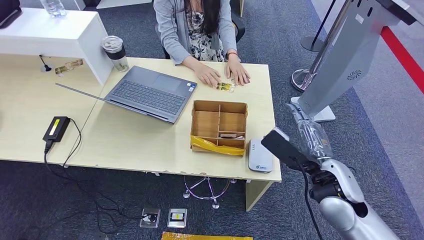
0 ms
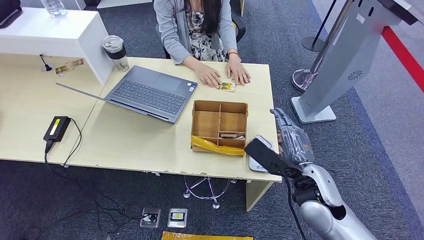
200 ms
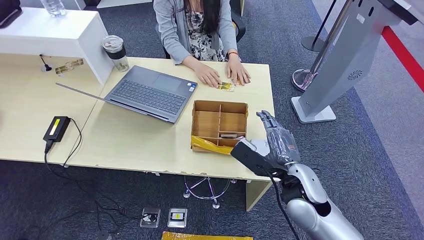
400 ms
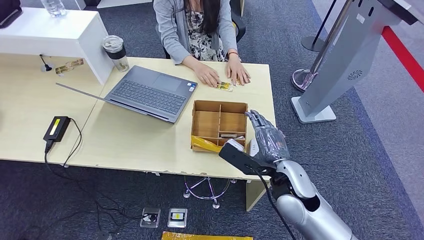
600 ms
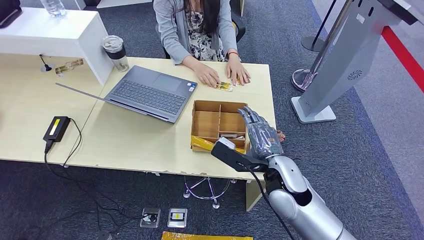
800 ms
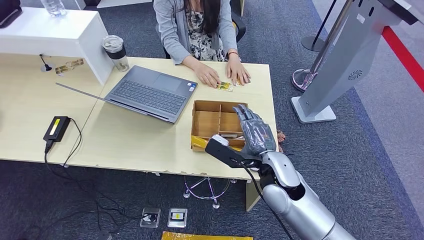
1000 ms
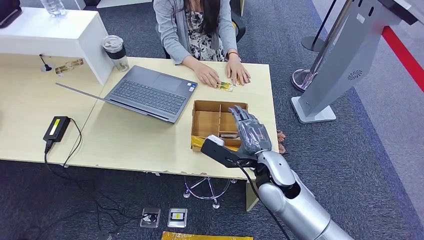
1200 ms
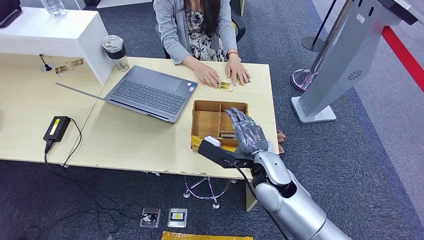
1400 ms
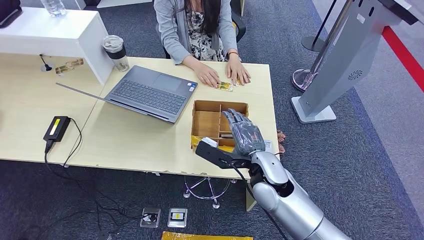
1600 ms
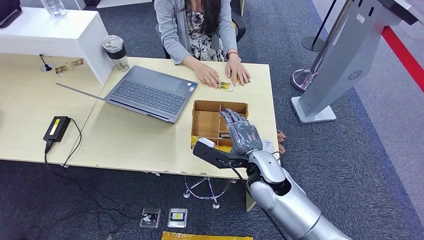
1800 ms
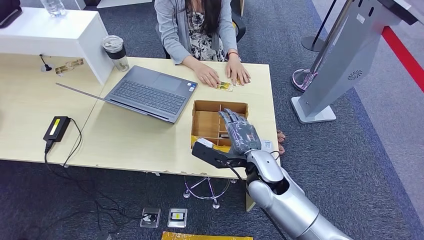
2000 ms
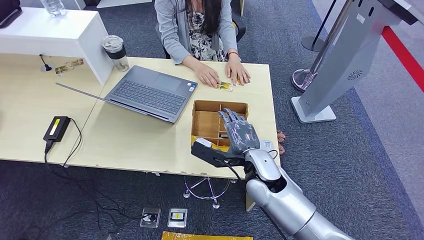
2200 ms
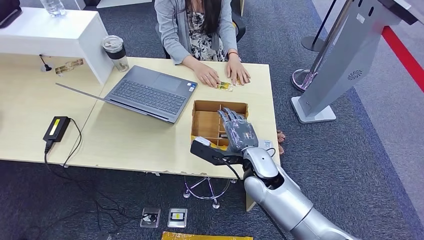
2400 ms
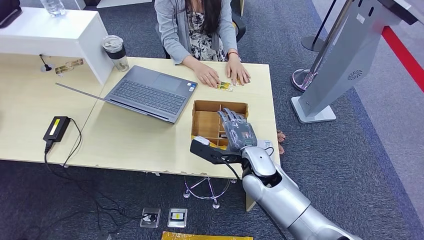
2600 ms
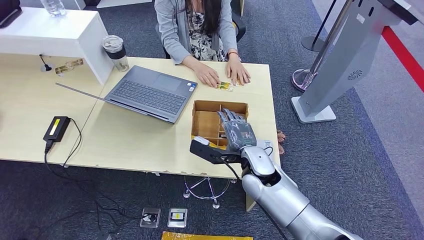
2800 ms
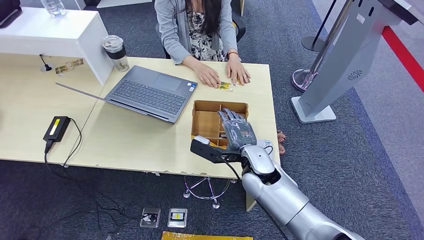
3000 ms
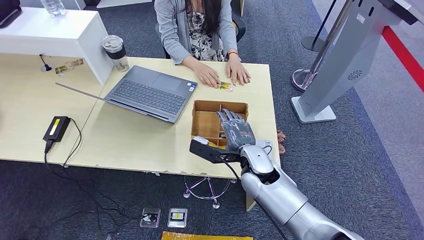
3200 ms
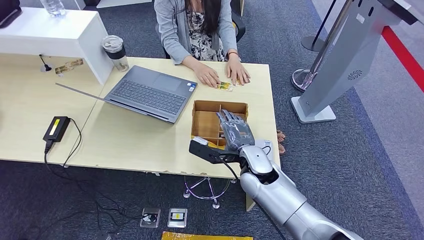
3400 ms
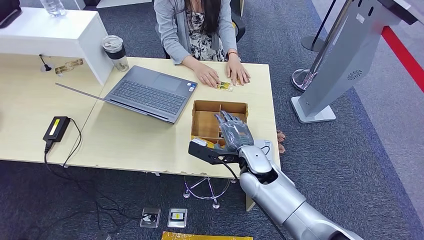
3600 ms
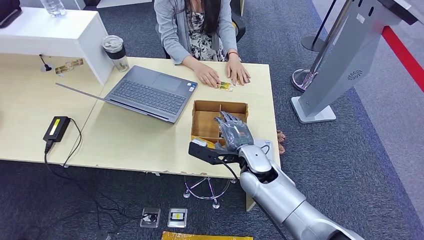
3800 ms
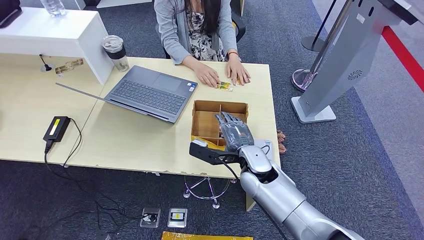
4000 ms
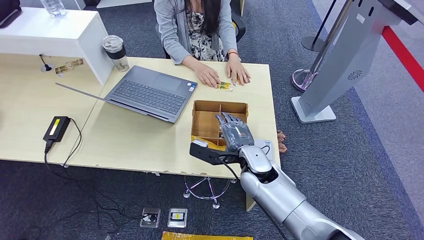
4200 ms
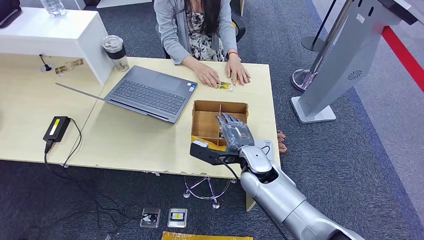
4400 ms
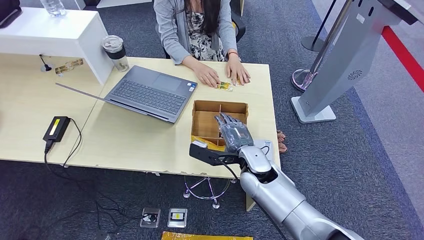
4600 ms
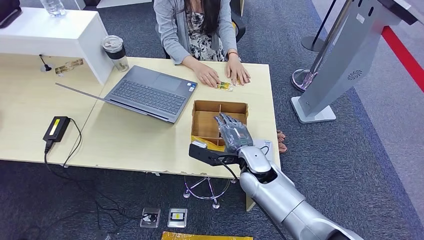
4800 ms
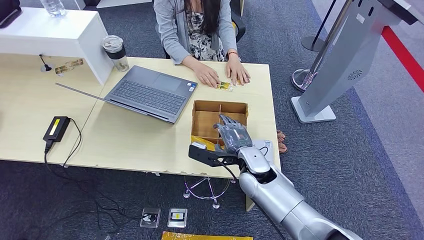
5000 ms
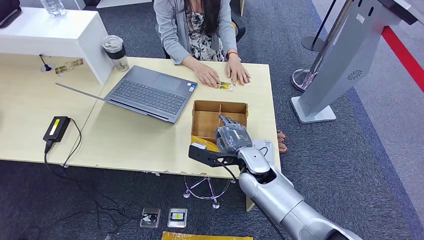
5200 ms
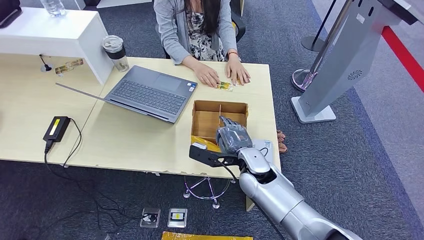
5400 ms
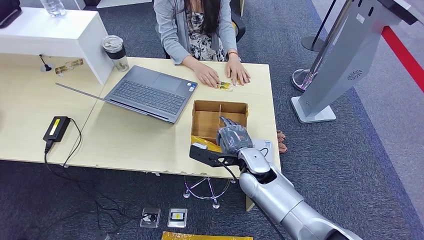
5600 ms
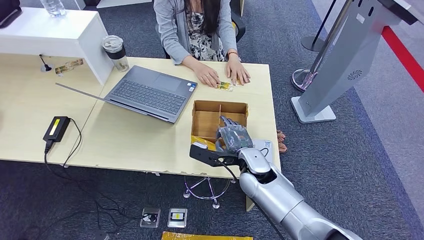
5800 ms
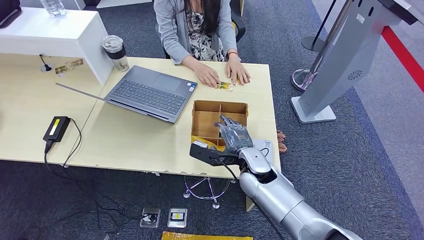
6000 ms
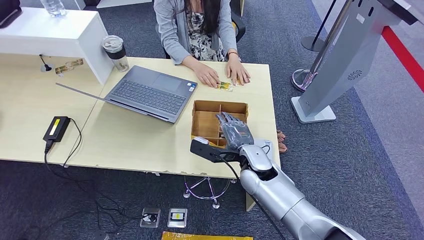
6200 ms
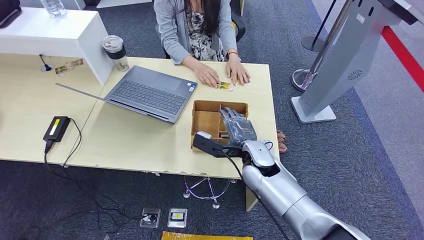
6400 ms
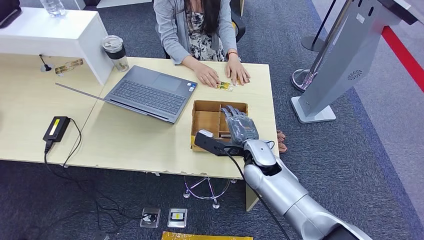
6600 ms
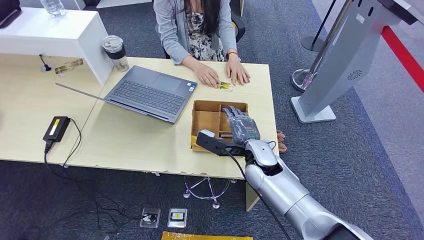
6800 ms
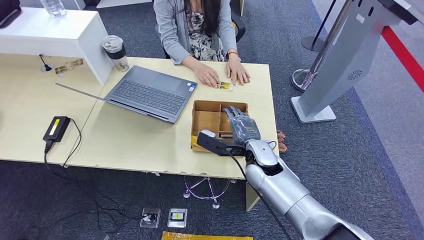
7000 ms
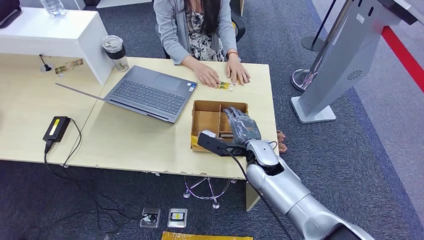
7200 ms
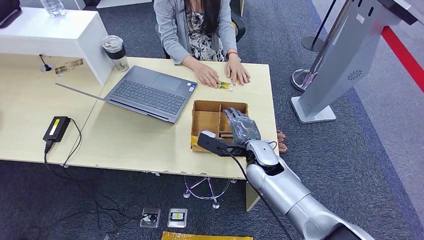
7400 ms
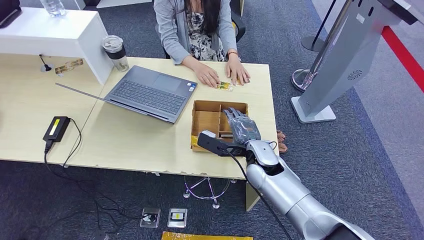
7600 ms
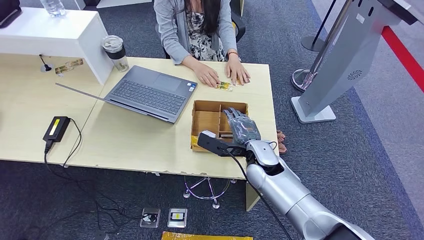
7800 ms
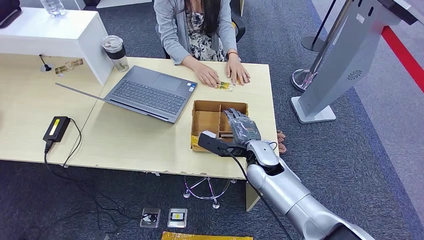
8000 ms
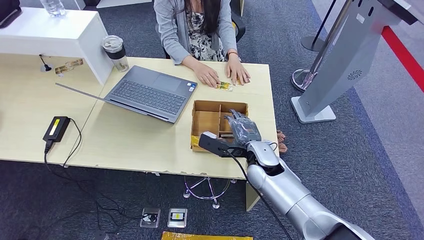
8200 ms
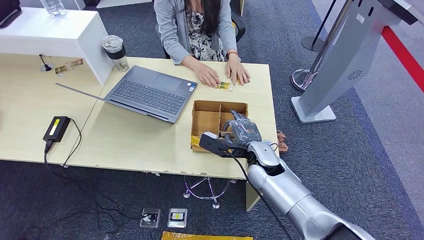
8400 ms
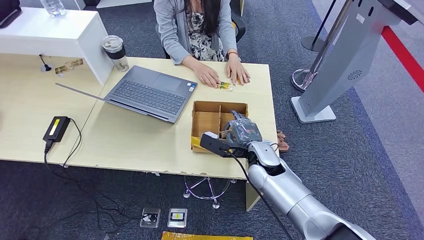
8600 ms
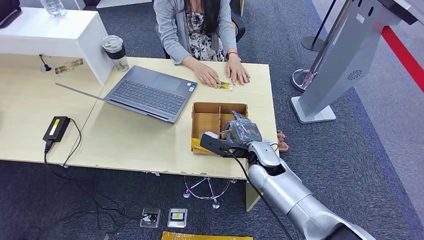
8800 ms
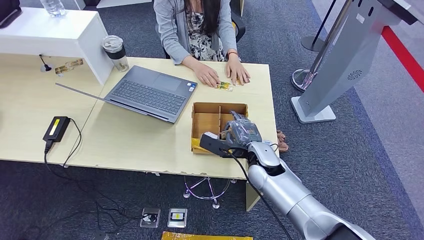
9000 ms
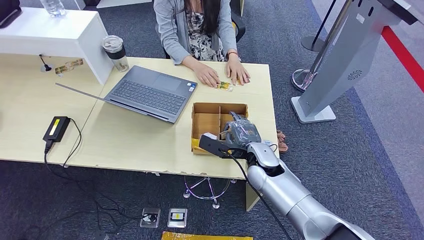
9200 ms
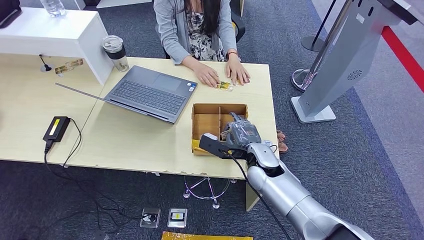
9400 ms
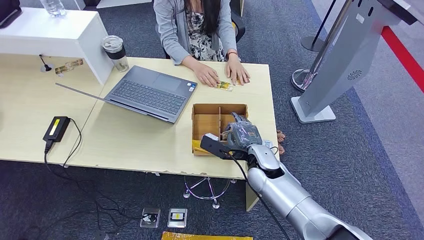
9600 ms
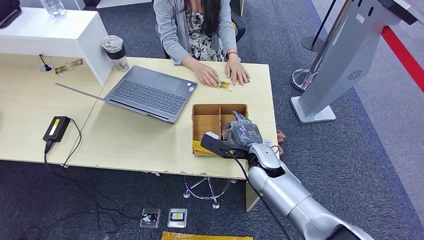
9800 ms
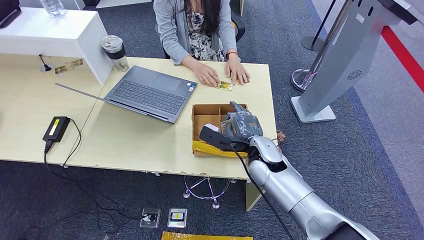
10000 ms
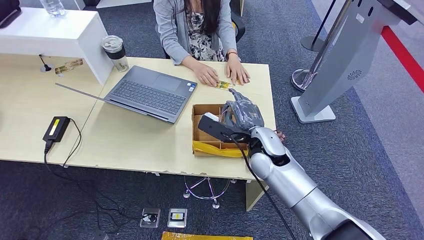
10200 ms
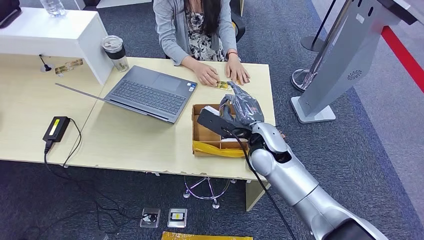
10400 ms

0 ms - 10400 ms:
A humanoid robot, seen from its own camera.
0 ms - 1400 ms: The right hand is displaced to the left by approximately 15 cm.
1400 ms - 4400 ms: There are only small adjustments of the hands.
4400 ms - 6000 ms: Neither hand changes place.
6000 ms - 7400 ms: The hands make only small movements.
7400 ms - 9000 ms: The two hands keep their place.
9000 ms - 10400 ms: The right hand moves upward, approximately 5 cm.

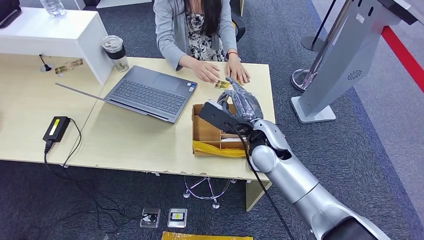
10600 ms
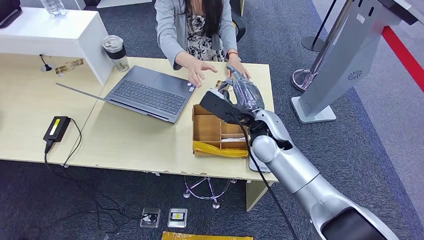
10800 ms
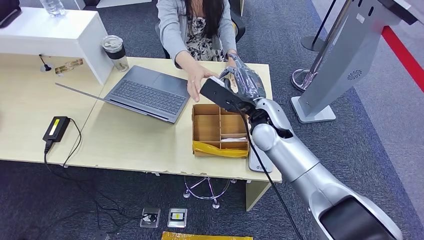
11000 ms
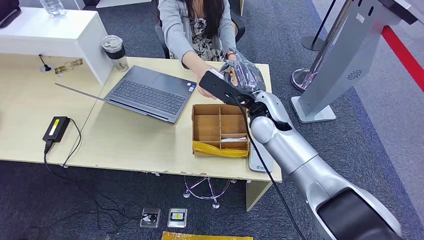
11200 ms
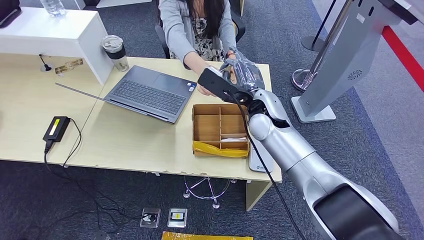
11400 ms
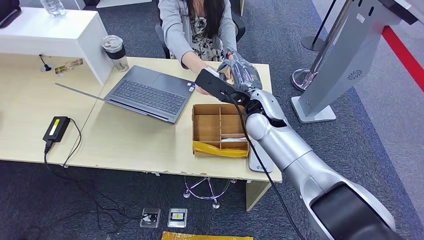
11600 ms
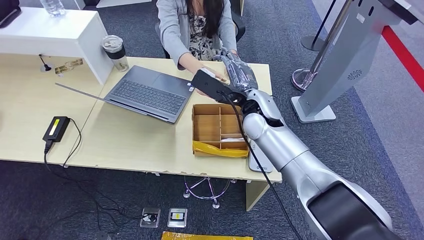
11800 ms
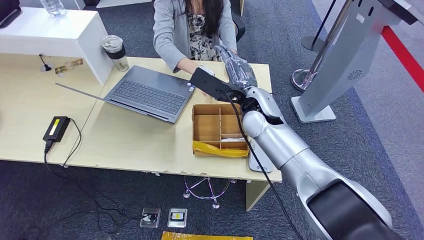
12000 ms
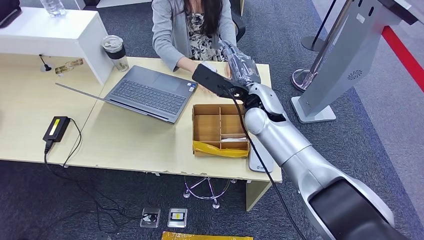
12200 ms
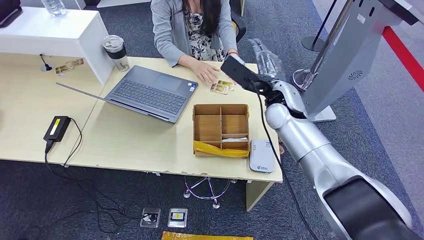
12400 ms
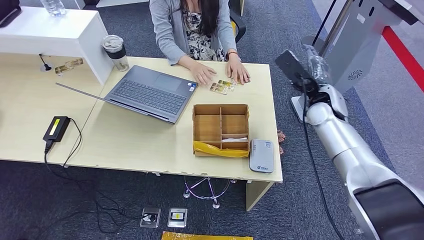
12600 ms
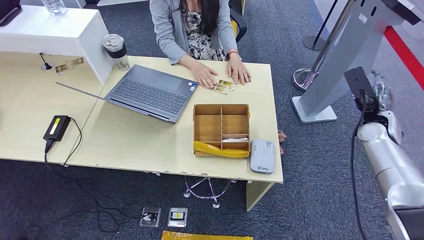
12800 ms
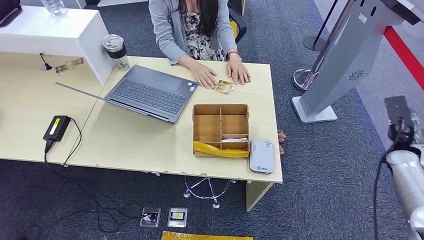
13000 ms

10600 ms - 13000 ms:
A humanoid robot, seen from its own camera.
Step, 10800 ms - 13000 ms: Hand the room key to the person.
10600 ms - 11800 ms: The right hand shifts by approximately 5 cm.
11800 ms - 13000 ms: The right hand heads to the right, covering approximately 40 cm.
